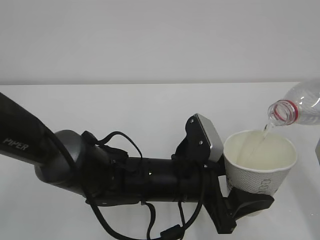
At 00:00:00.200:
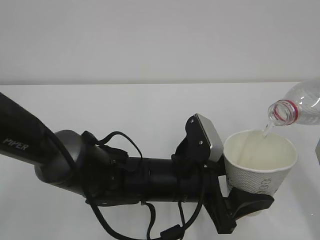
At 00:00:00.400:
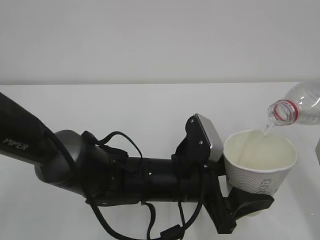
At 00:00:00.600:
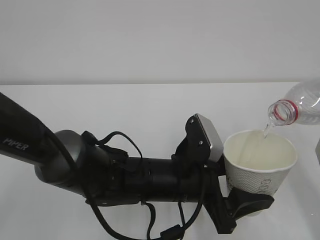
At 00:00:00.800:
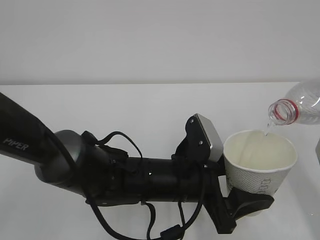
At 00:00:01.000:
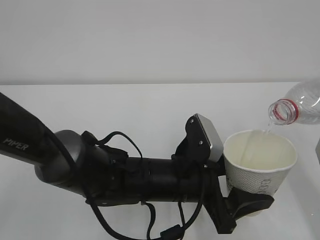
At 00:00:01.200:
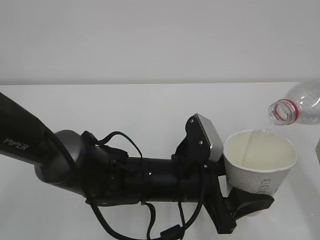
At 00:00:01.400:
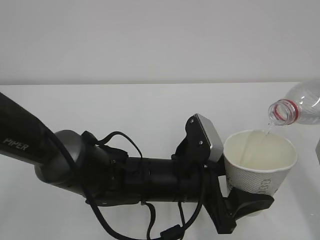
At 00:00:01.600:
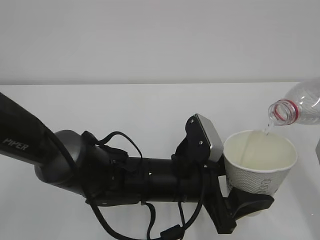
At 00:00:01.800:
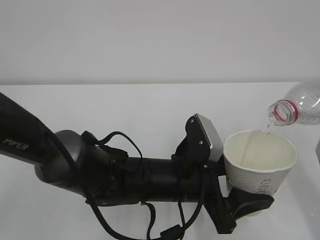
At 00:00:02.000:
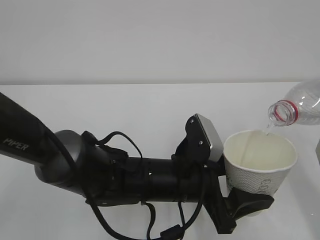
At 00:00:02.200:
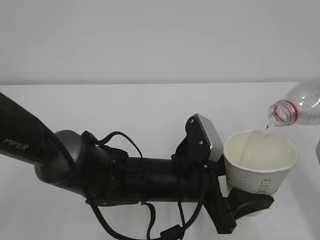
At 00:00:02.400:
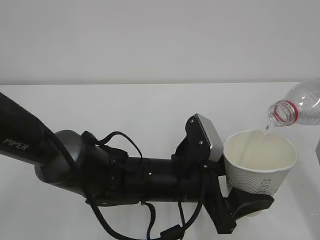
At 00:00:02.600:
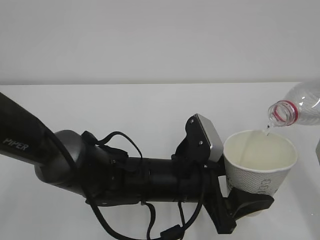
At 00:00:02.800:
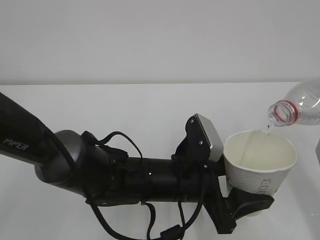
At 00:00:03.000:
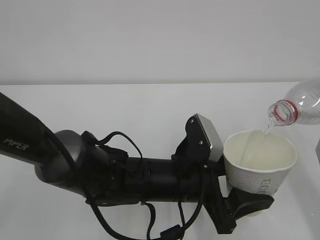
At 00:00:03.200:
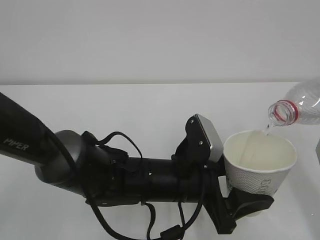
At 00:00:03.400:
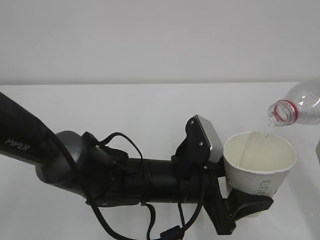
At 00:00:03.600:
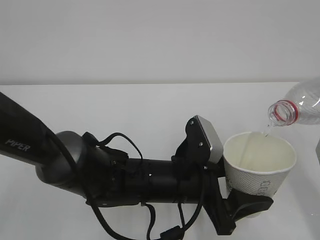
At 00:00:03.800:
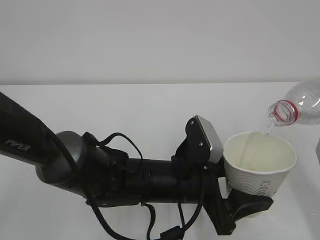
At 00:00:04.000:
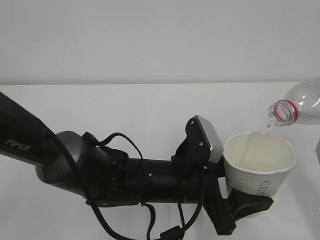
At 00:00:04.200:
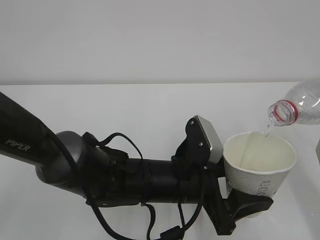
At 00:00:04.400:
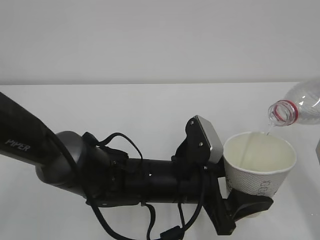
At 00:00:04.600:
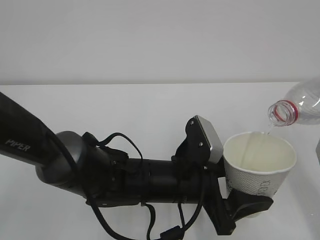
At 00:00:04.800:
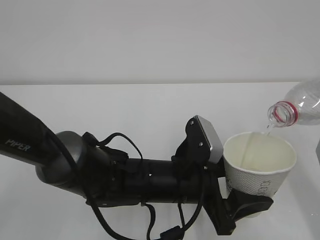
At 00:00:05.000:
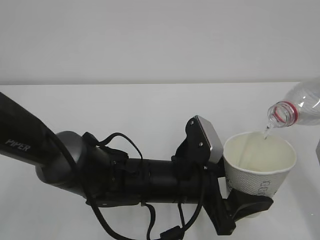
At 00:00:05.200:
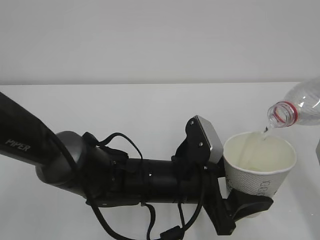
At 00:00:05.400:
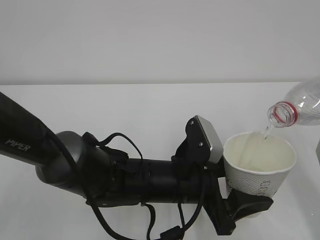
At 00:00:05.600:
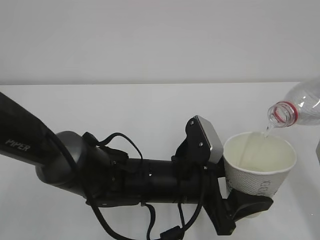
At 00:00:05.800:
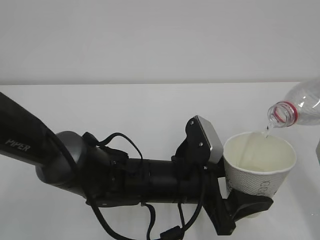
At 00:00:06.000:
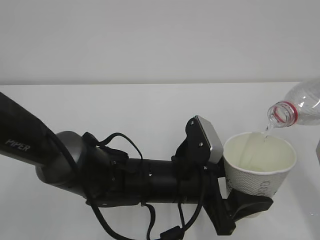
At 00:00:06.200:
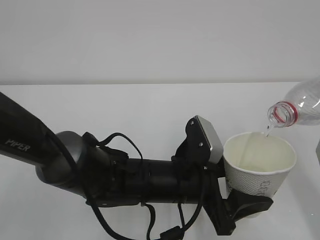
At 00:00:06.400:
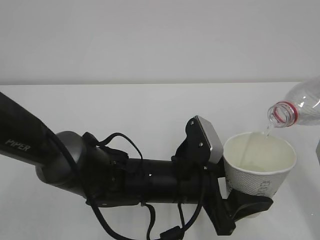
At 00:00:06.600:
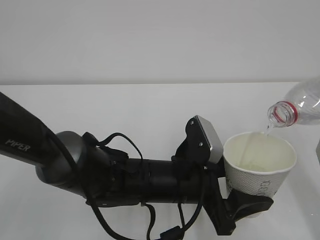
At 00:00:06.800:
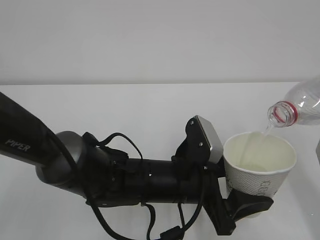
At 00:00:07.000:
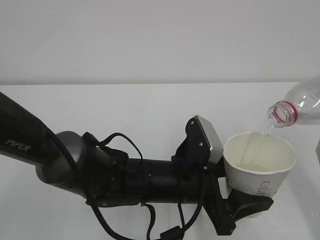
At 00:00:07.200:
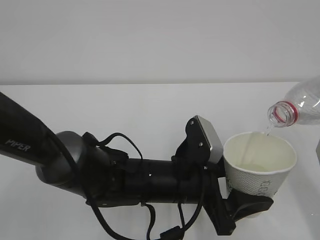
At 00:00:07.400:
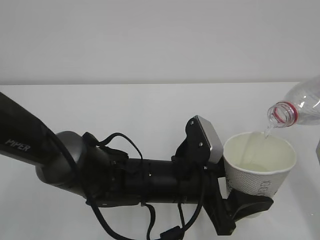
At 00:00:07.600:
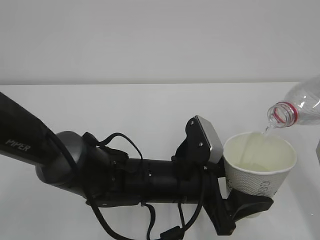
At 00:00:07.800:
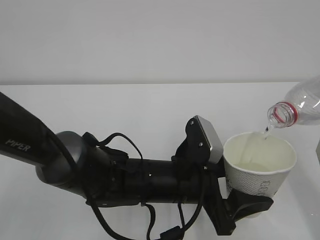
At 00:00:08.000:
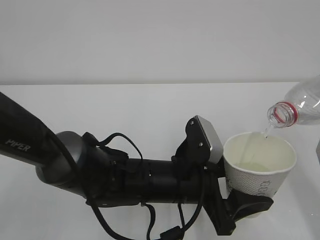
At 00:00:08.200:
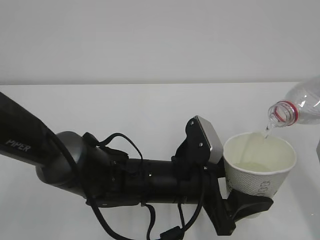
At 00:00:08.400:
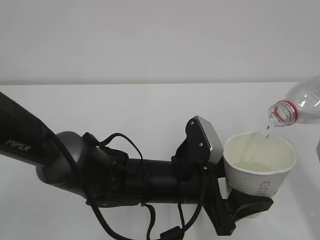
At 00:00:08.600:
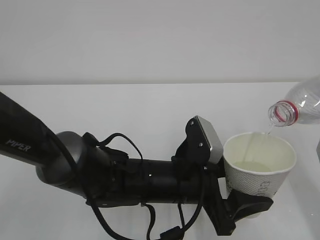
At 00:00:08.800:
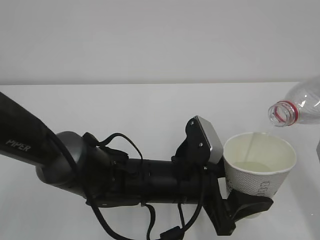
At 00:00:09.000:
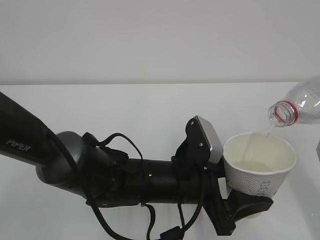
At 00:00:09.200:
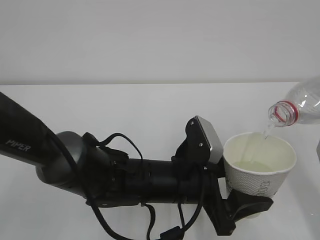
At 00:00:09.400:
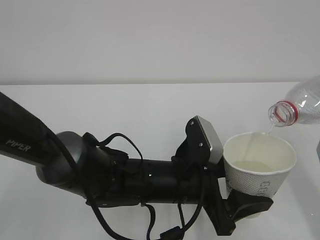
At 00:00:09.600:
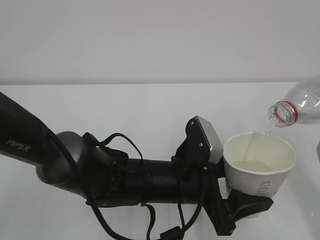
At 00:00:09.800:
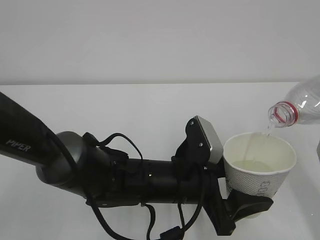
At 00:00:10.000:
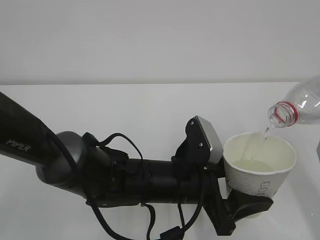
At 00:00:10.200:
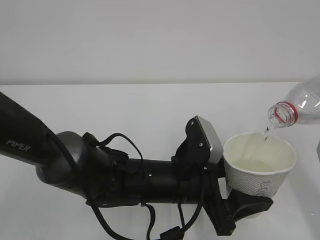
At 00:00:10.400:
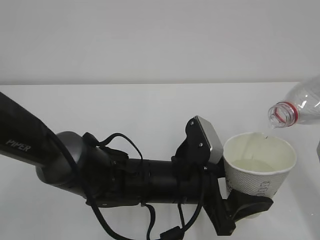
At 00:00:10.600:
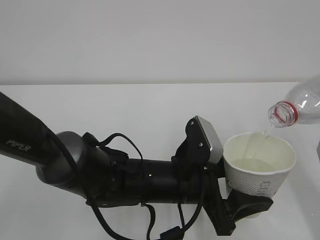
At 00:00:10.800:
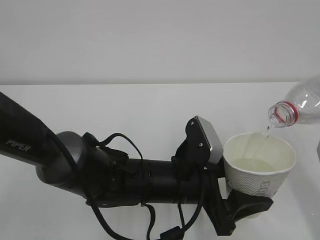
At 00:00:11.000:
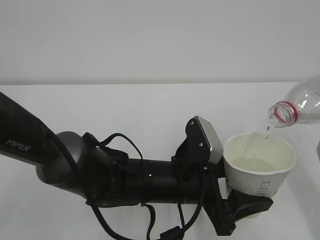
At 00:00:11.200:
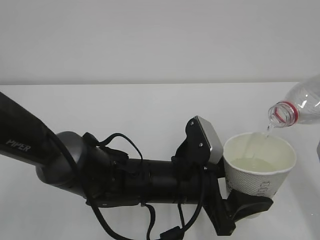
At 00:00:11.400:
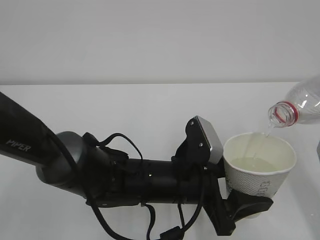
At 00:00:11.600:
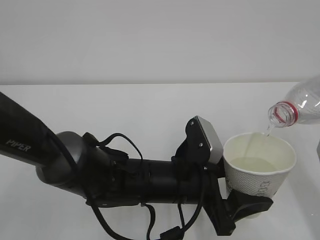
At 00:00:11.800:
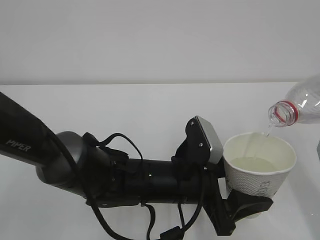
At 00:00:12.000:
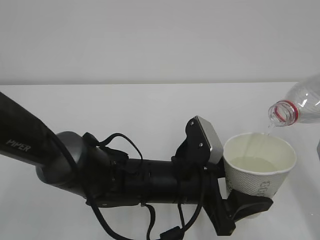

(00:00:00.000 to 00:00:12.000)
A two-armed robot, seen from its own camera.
00:00:00.000 - 00:00:12.000: Neither gripper changes place.

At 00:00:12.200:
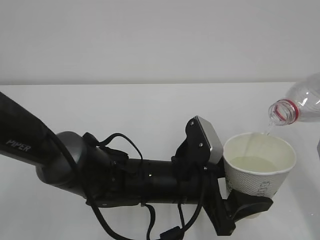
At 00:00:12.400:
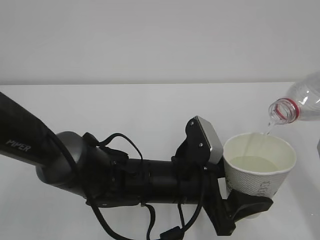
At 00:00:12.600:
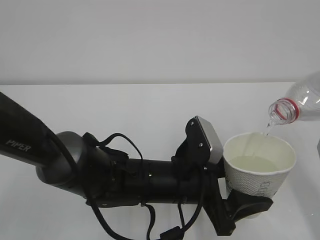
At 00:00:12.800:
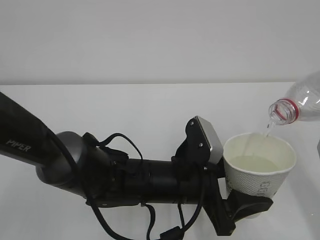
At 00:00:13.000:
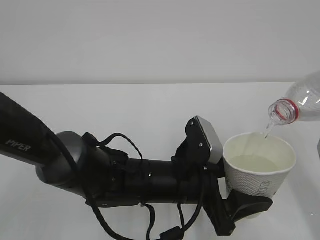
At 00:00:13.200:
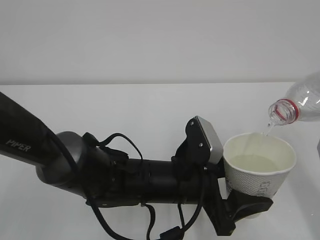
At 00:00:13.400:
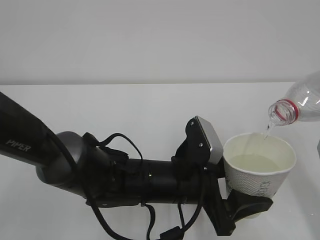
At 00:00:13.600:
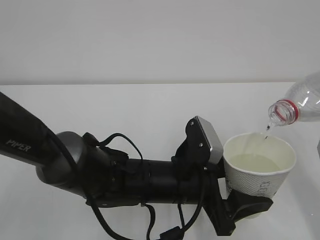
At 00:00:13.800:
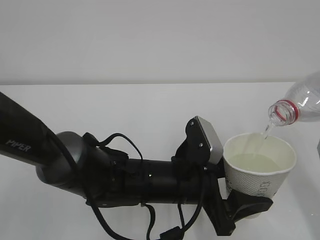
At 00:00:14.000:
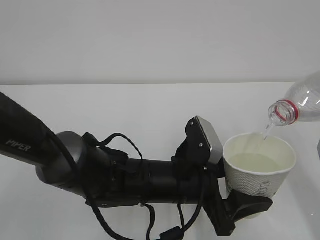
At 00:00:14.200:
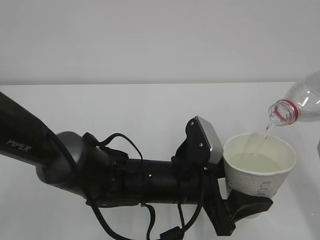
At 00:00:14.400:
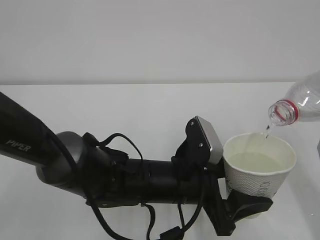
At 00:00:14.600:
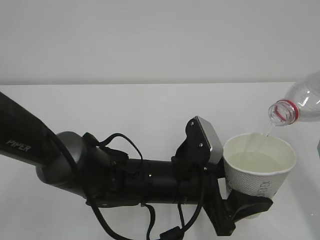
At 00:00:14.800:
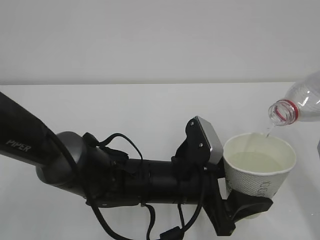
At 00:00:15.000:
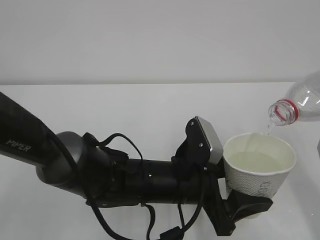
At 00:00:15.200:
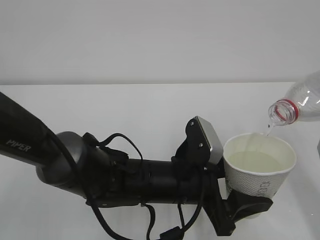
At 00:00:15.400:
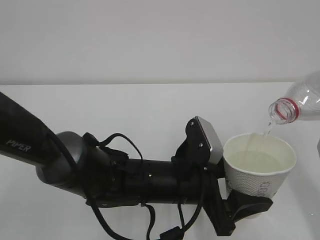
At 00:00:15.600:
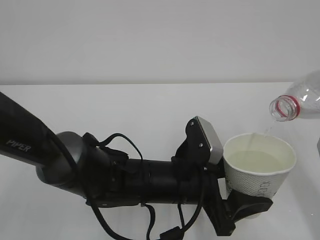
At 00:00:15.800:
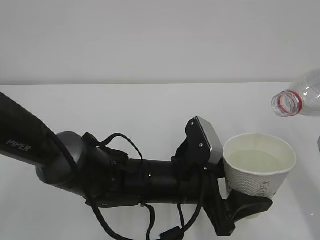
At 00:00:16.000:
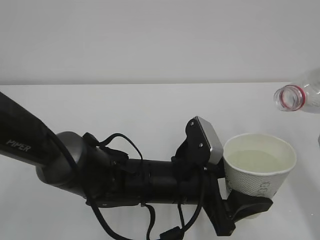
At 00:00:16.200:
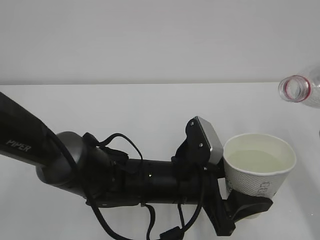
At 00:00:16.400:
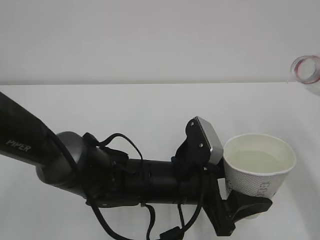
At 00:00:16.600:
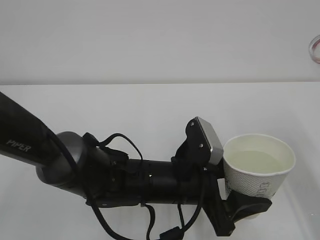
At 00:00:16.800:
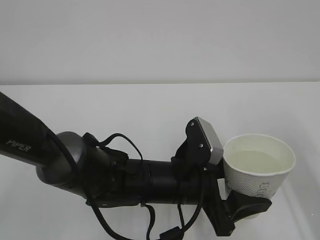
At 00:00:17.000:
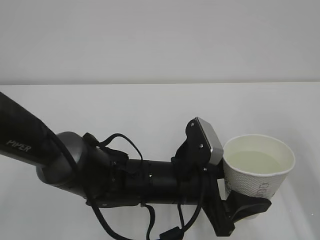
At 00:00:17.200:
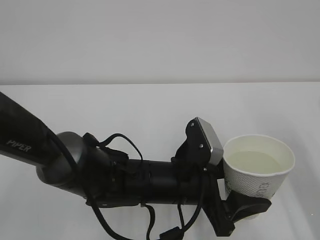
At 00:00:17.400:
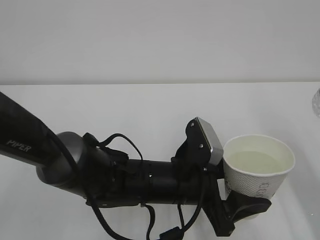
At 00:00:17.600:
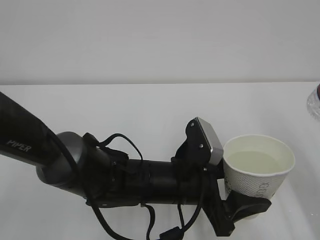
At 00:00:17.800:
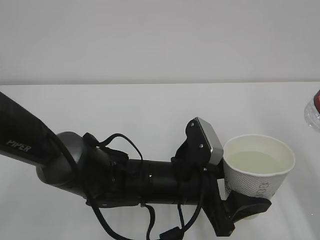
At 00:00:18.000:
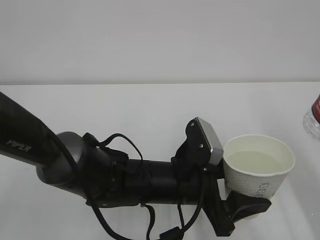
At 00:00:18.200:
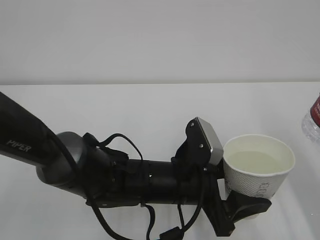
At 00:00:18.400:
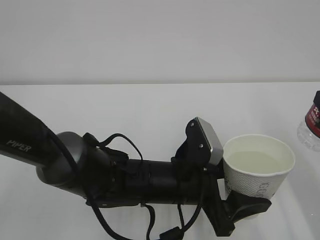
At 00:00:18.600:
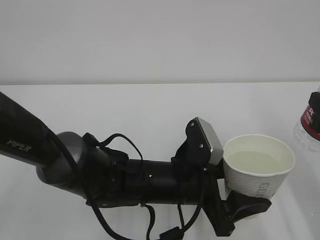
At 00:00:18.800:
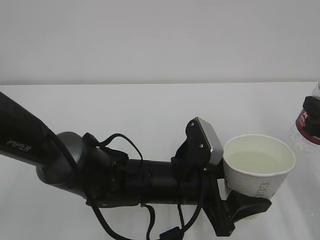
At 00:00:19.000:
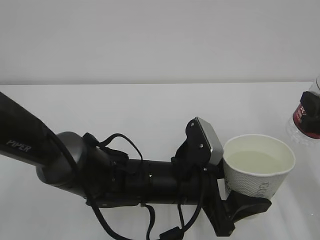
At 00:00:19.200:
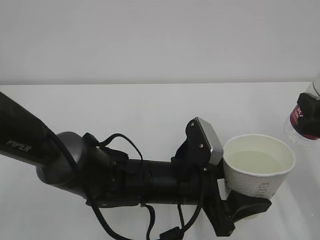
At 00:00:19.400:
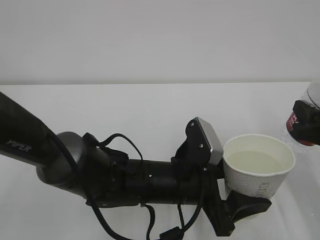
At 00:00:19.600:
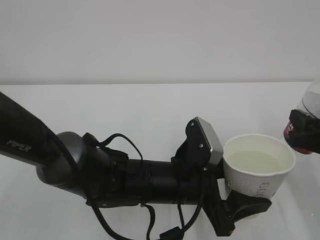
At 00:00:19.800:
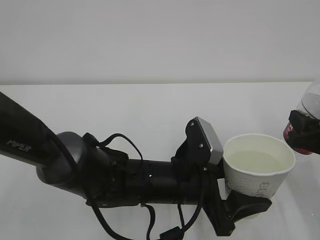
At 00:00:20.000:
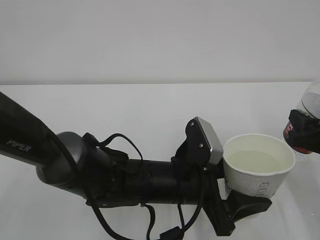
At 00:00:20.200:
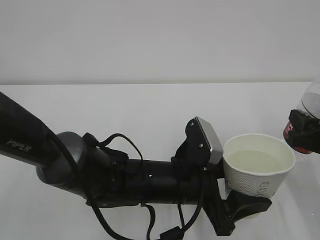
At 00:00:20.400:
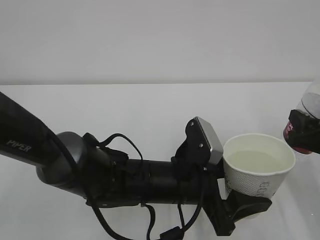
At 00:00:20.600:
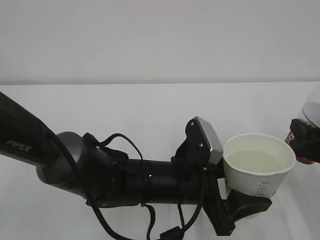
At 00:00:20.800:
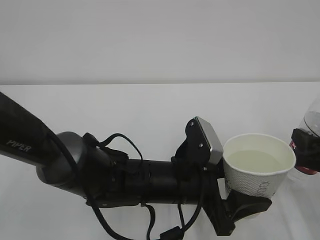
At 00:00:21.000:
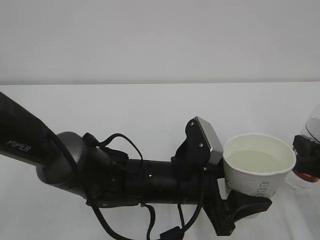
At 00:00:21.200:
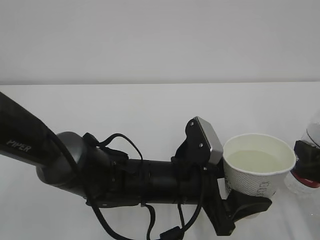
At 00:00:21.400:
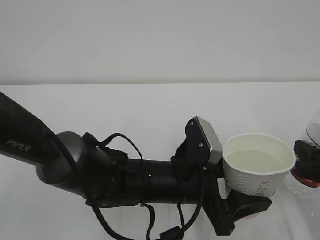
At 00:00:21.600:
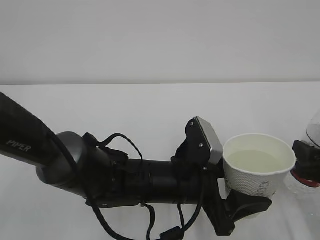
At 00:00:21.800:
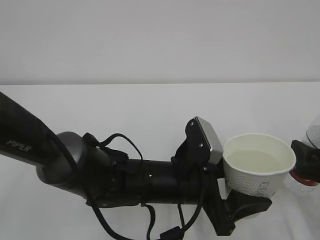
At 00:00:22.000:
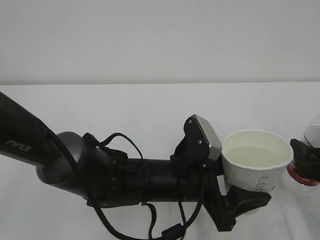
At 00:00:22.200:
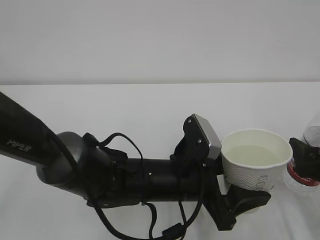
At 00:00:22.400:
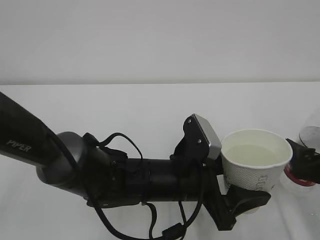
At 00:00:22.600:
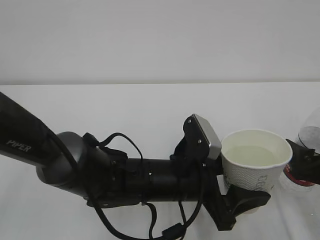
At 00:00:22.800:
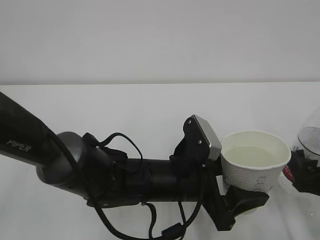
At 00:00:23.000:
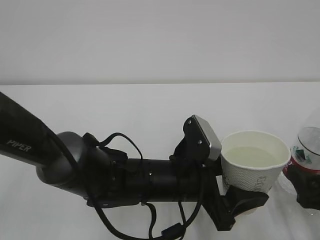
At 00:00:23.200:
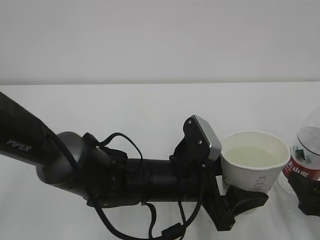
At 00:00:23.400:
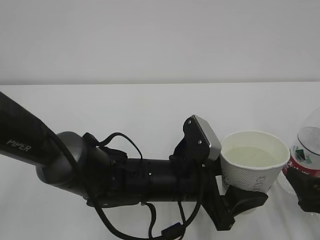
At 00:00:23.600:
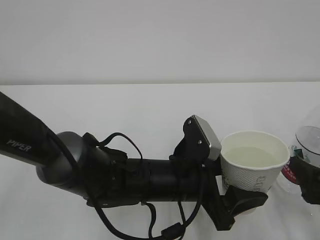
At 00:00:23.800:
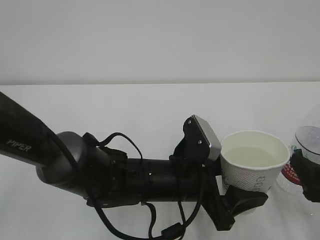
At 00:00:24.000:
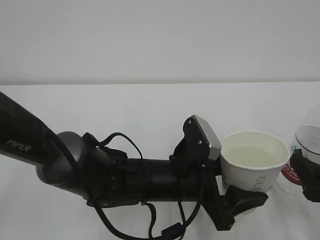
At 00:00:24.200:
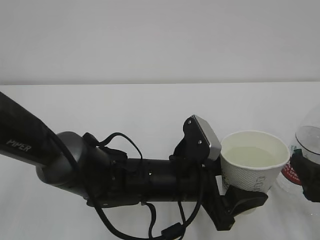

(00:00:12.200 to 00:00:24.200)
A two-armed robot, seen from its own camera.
00:00:12.200 - 00:00:15.200: Both grippers stay about where they are.
00:00:18.200 - 00:00:19.800: The right gripper moves downward, some 10 cm.
00:00:19.800 - 00:00:21.200: There are only small adjustments of the grippers.
00:00:21.200 - 00:00:22.600: The right gripper opens its fingers.
00:00:22.600 - 00:00:24.200: The grippers stay close to where they were, moving slightly.
